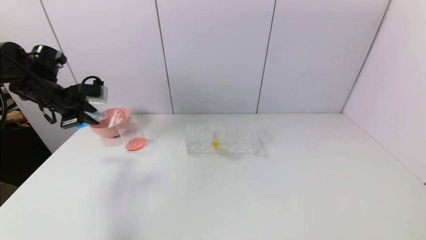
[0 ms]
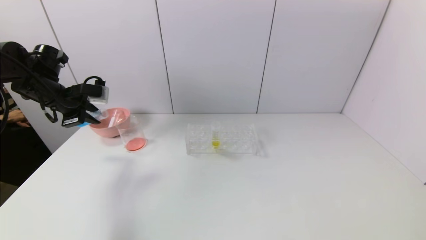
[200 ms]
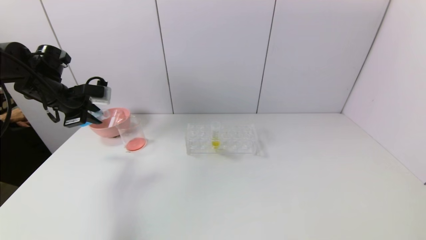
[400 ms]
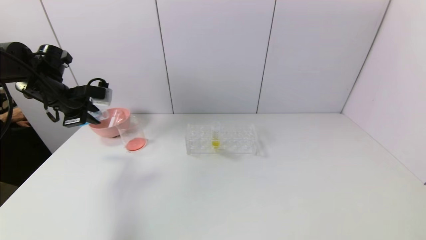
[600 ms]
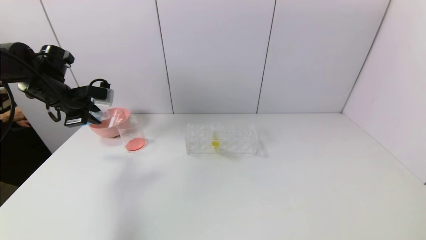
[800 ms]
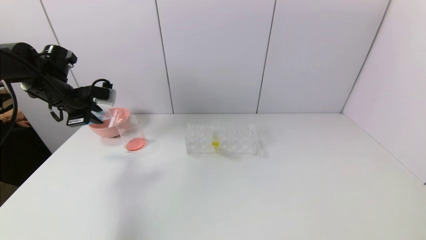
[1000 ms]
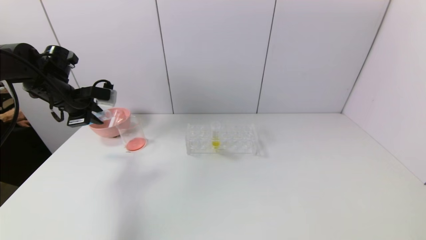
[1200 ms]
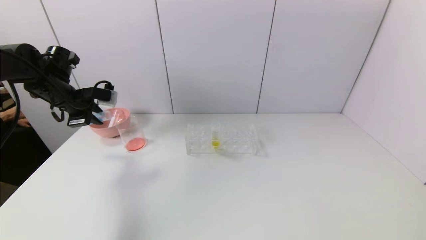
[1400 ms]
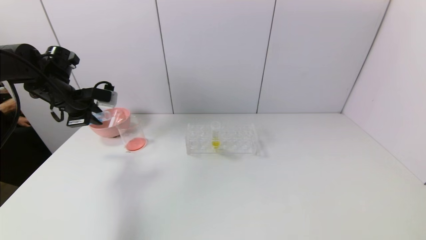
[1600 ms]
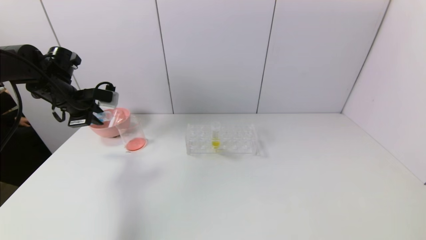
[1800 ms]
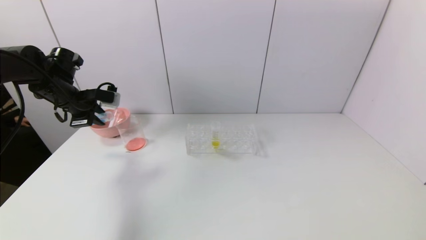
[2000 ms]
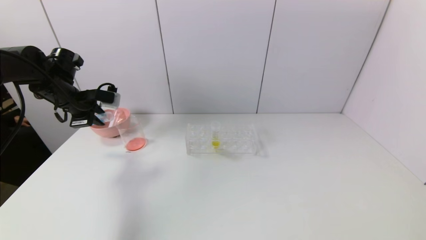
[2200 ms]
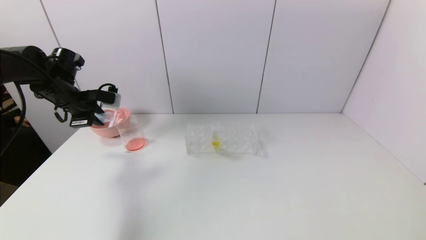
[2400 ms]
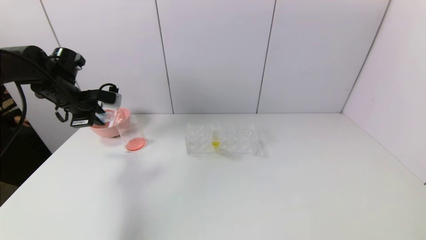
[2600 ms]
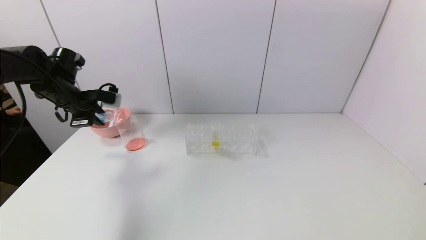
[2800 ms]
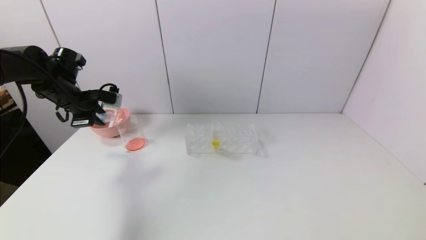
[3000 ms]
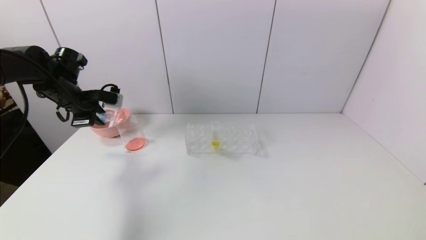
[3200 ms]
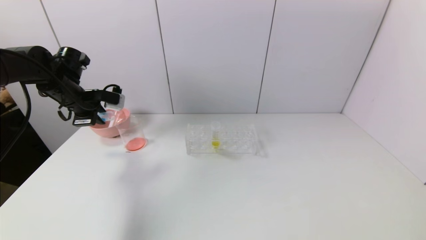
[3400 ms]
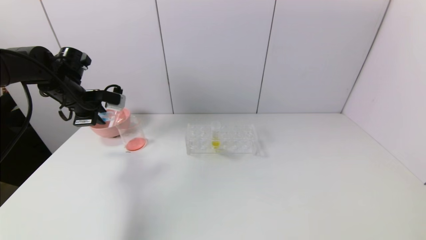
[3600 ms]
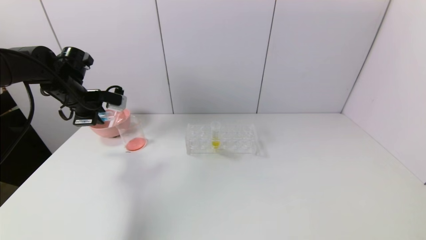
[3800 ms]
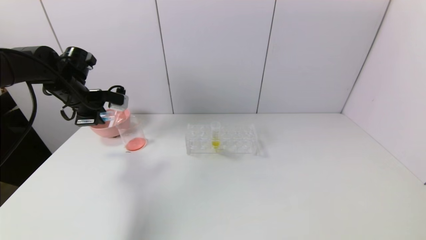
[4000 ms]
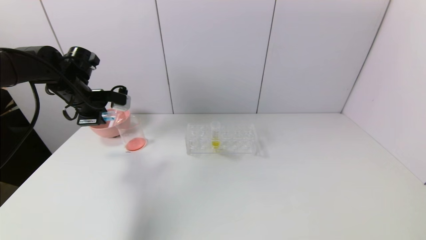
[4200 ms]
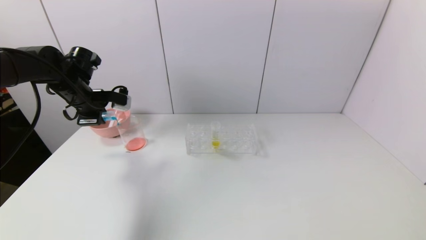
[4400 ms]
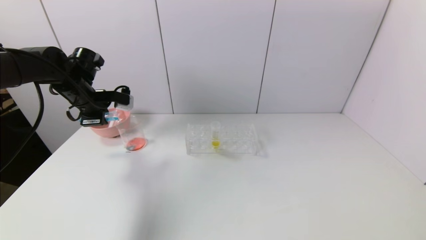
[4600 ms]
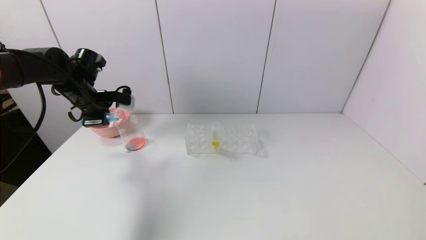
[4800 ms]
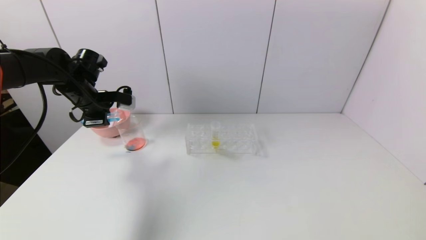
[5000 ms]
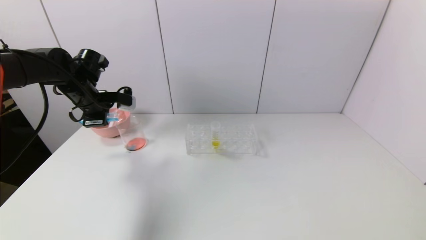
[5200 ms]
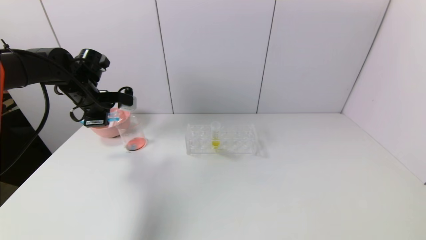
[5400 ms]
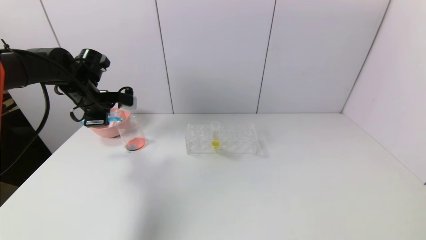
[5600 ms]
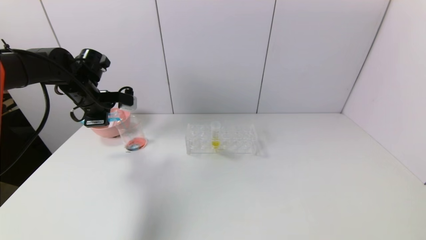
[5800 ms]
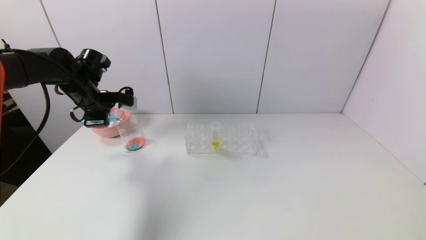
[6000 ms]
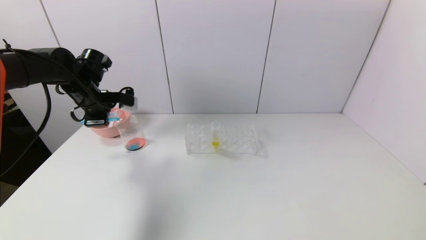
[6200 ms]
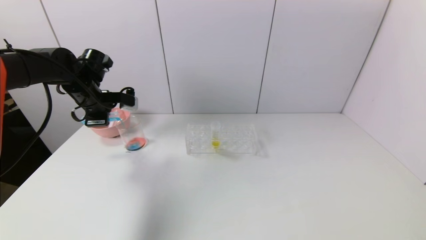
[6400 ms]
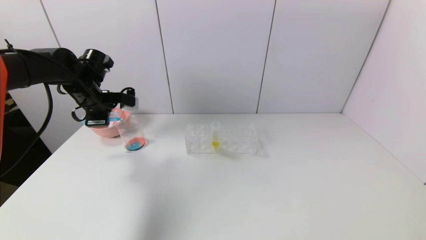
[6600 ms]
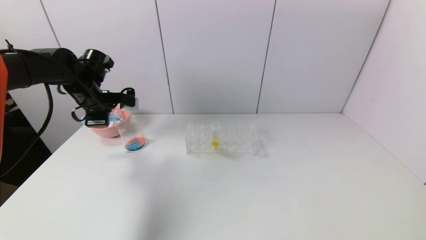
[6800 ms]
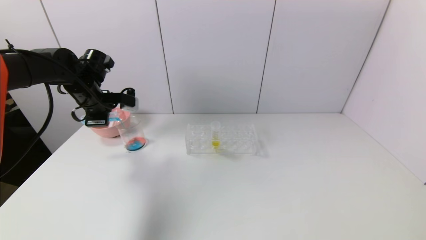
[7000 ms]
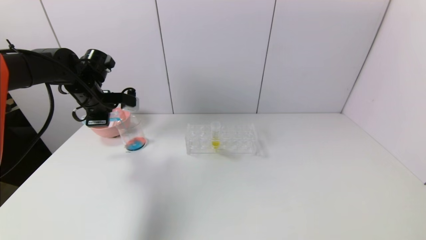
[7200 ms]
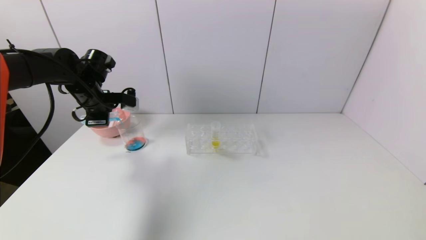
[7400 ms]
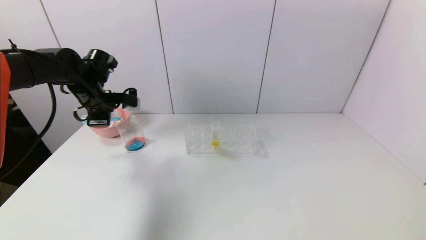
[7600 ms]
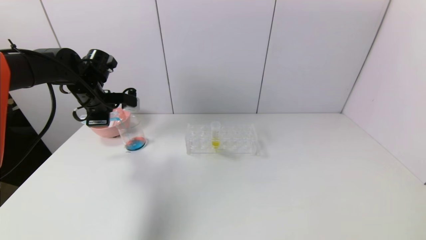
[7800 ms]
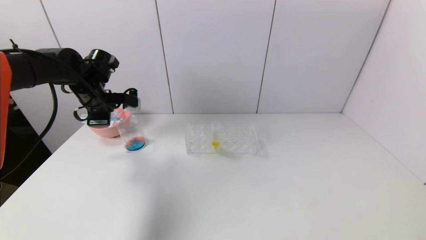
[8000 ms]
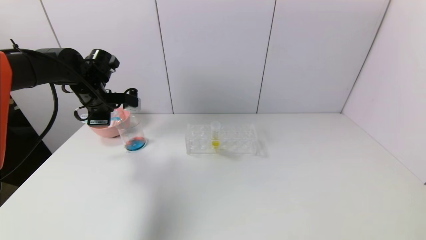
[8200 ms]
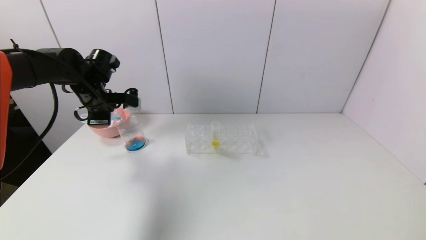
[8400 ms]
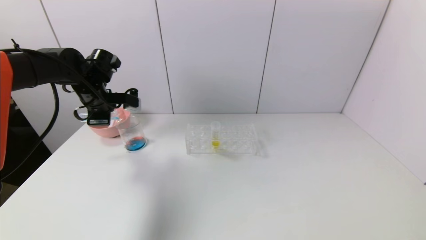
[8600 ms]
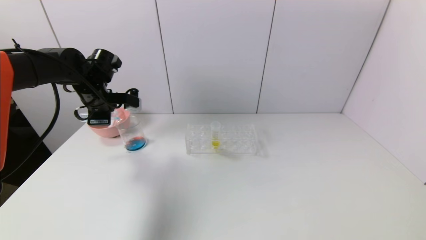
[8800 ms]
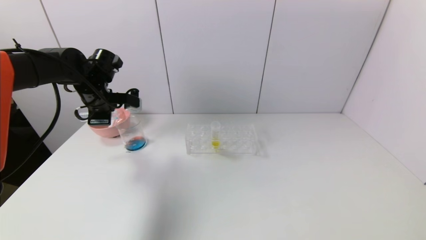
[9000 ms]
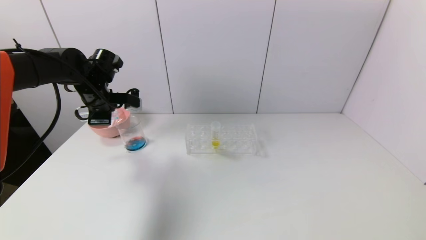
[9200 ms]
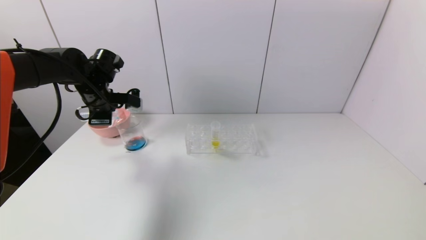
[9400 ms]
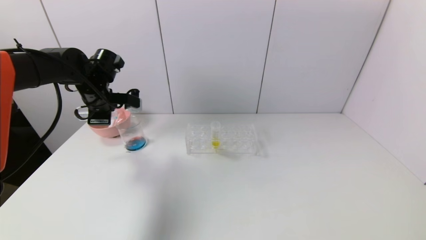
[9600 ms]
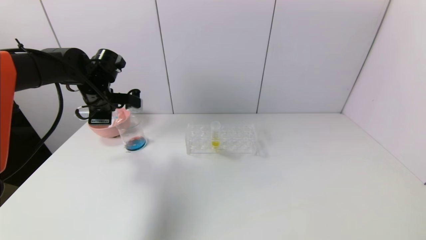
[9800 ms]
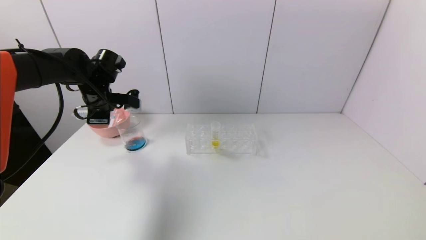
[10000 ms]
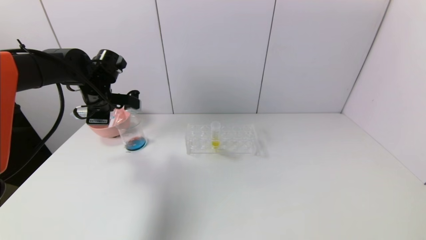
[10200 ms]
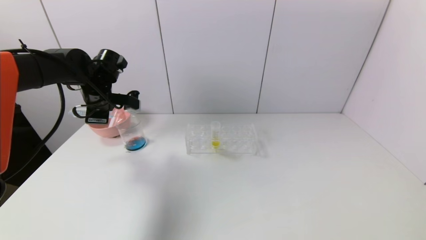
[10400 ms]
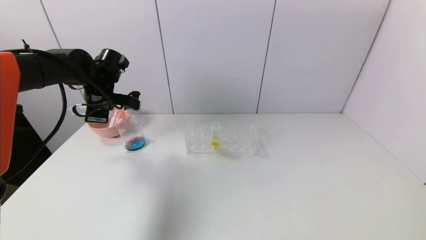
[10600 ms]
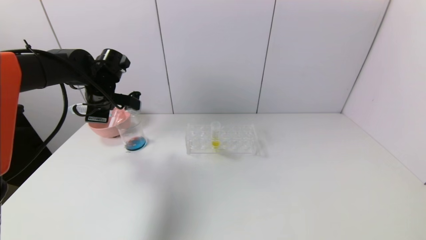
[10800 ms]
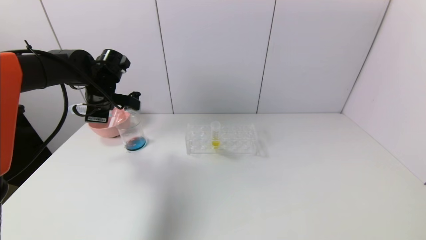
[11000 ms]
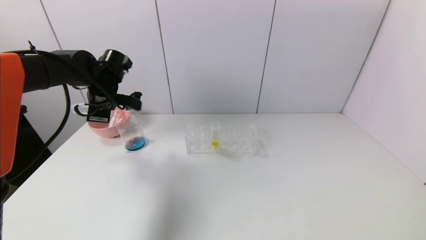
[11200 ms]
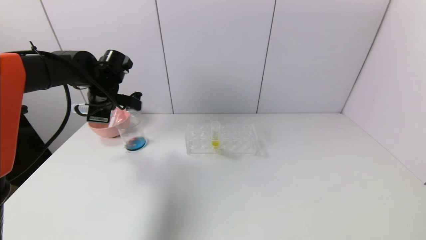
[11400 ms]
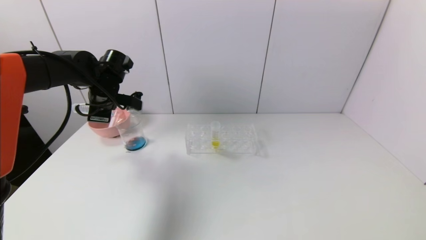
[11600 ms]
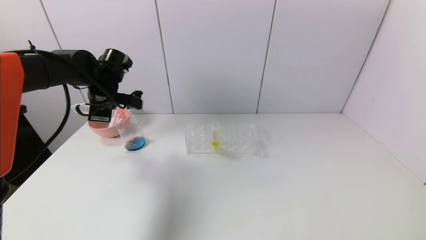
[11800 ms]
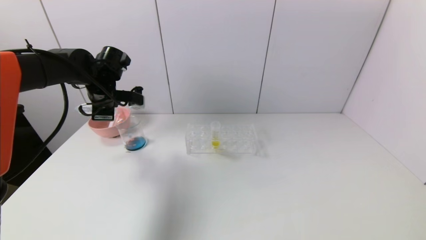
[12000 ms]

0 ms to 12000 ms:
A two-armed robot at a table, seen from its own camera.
Task of the whole recording: pick up the test tube with red pigment and the test tube with blue pigment by grippers and pour them into the container.
0 ms to 1600 ms: There are only small adjustments of the grippers.
1600 ms to 3000 ms: Both grippers stay put.
3000 ms to 6000 ms: The grippers stay close to where they were, moving slightly.
6000 ms to 7600 ms: Both grippers stay put.
7600 ms to 12000 ms: There are only small adjustments of the grippers.

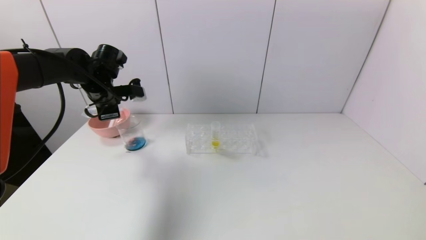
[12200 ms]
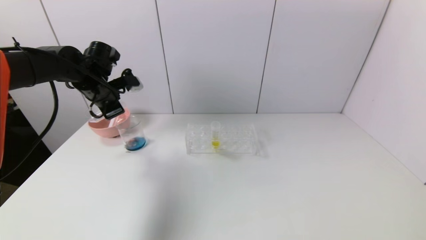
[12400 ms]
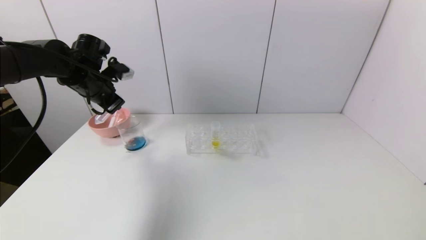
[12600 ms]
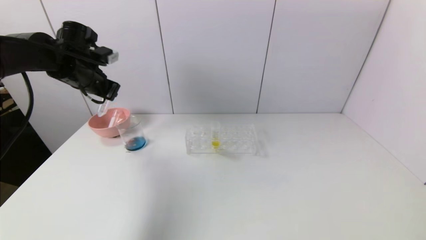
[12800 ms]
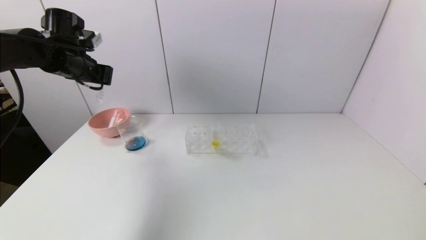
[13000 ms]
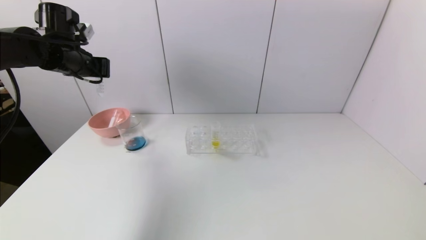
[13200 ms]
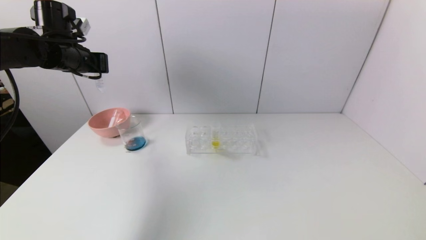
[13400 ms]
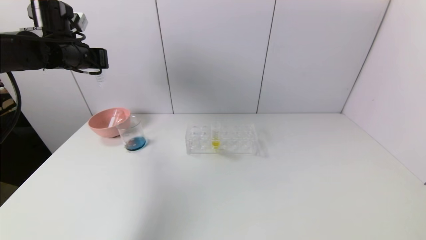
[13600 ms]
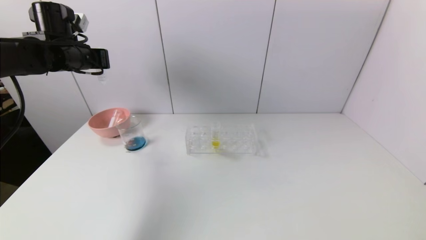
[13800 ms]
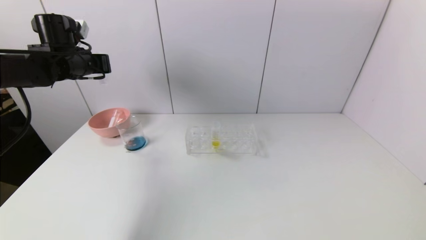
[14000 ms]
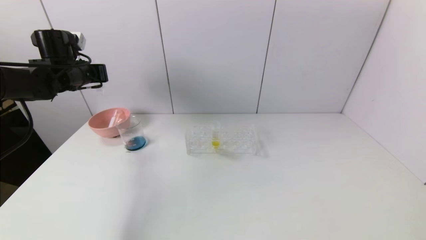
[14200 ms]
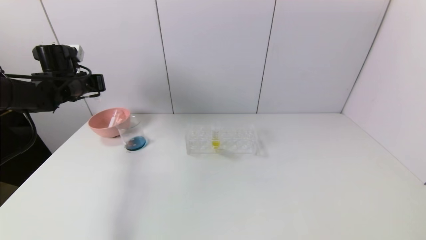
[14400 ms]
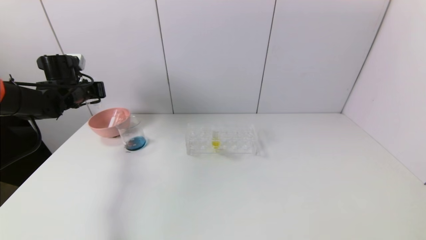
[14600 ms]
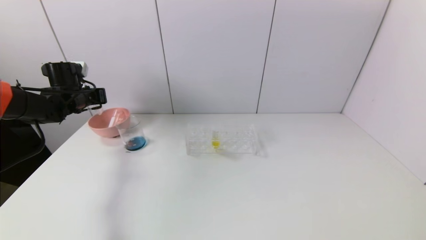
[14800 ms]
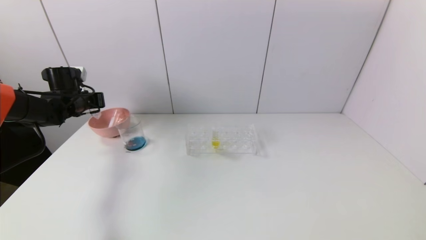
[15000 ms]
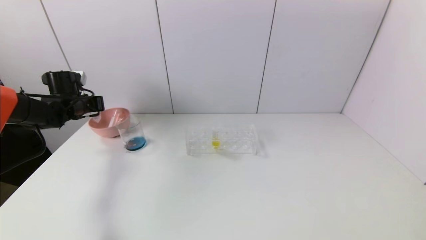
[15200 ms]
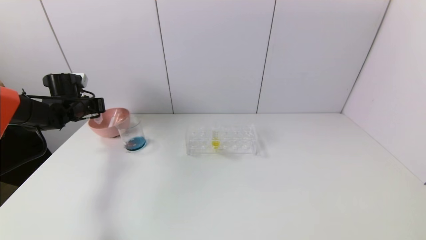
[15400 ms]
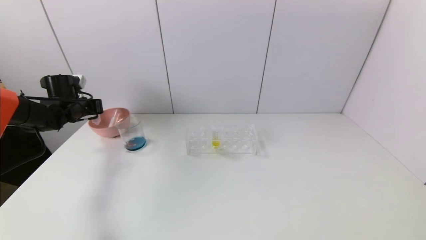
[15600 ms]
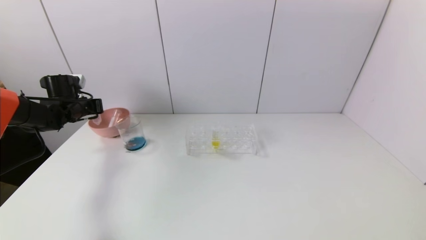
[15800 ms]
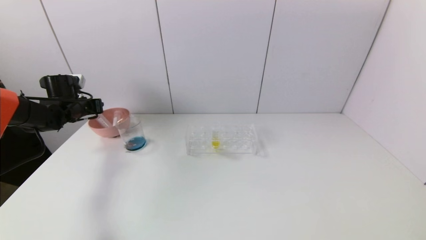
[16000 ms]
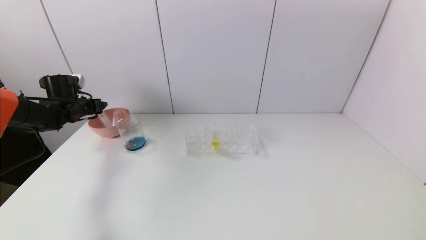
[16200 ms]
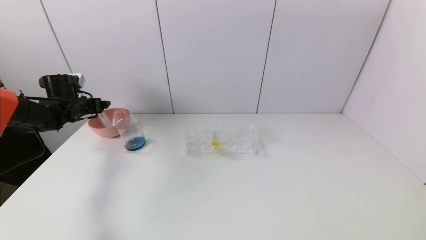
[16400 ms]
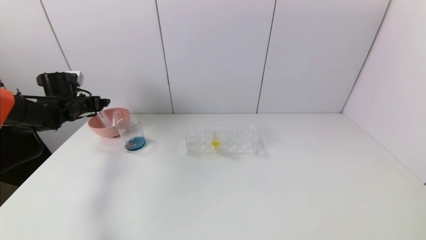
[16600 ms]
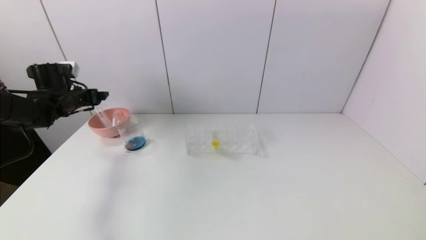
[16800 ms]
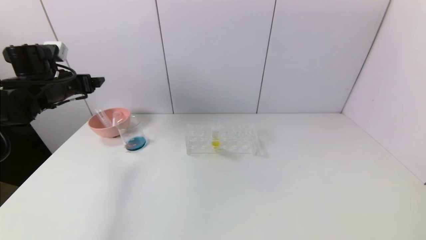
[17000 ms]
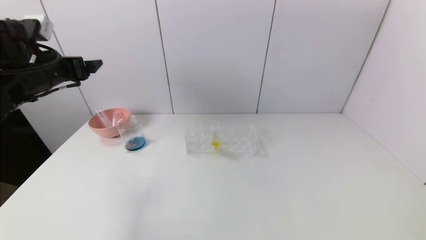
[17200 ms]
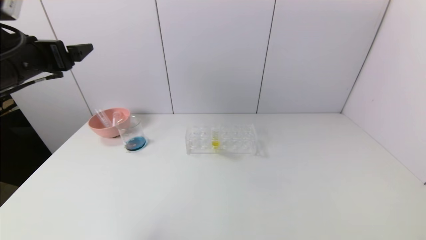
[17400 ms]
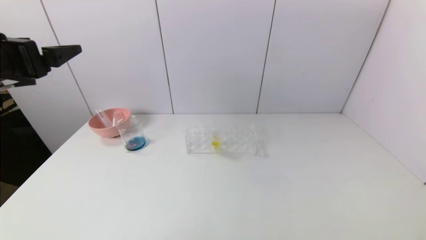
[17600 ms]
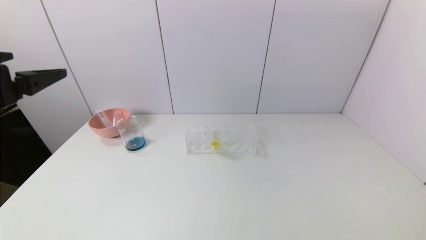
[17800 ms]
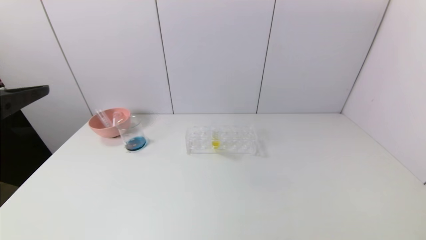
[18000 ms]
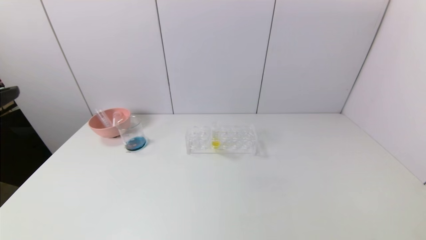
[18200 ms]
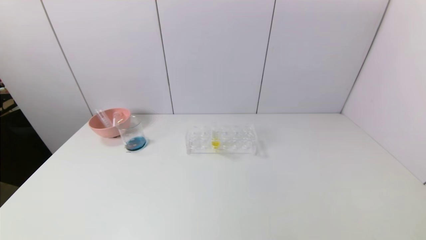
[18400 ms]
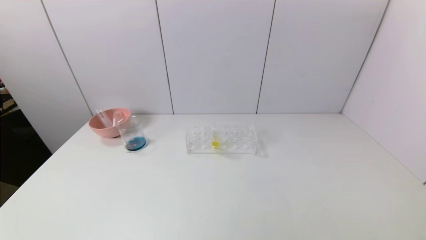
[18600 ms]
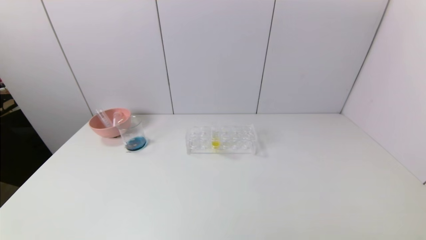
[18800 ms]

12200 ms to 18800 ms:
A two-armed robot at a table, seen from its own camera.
Task of the whole recording: pick up the test tube with red pigment and the test tube with blue pigment by grippers and pour them into the container.
Step, 13000 ms to 16600 ms: Place the test tube into the bowl with the left gripper.
12200 ms to 13800 ms: The left gripper heads upward and to the left, covering about 10 cm.
13800 ms to 15400 ms: The left gripper shifts some 15 cm downward and to the left.
15400 ms to 17200 ms: The left gripper is displaced backward, upward and to the right by roughly 20 cm, and opens up.
17200 ms to 18800 ms: The left gripper travels backward by about 35 cm.
